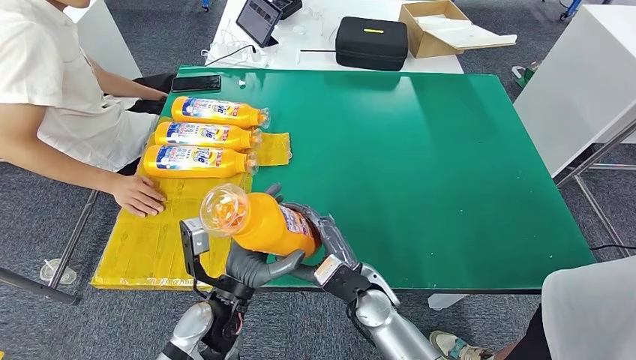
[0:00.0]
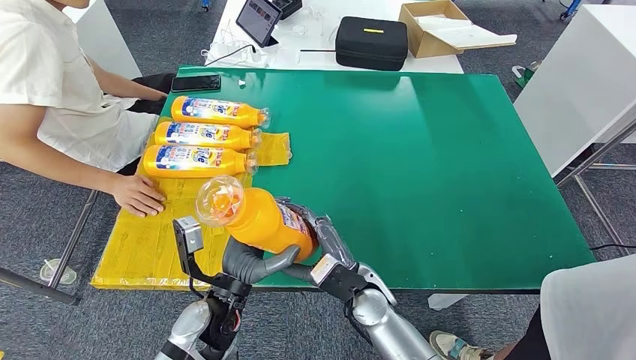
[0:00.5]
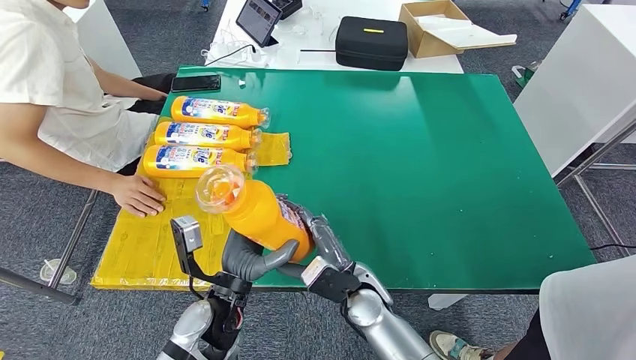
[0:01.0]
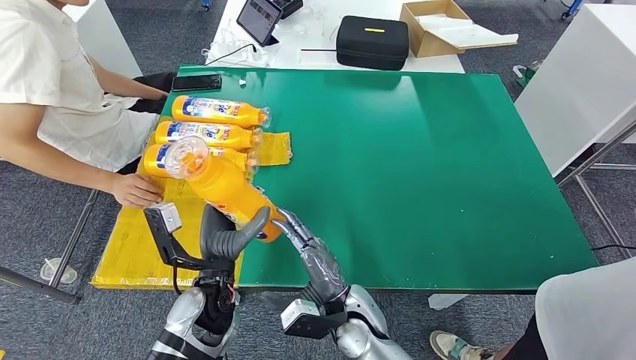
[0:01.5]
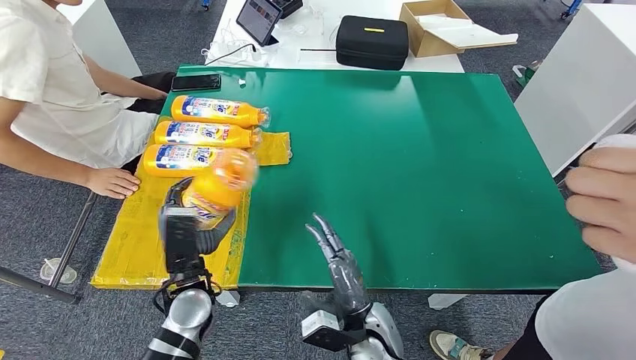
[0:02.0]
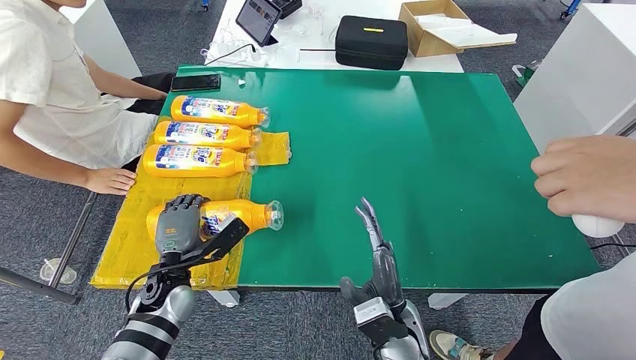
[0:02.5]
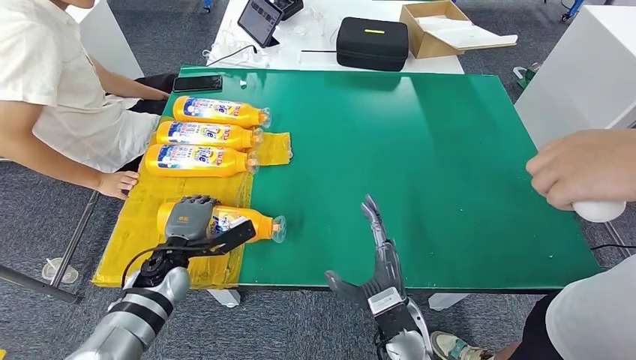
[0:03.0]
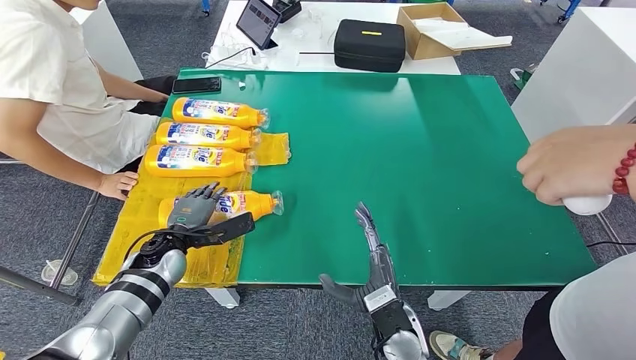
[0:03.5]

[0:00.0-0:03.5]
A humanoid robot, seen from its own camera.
Step, 0:00.0 to 0:03.5: Flip the fast-moving consumer goods bottle to the front side.
